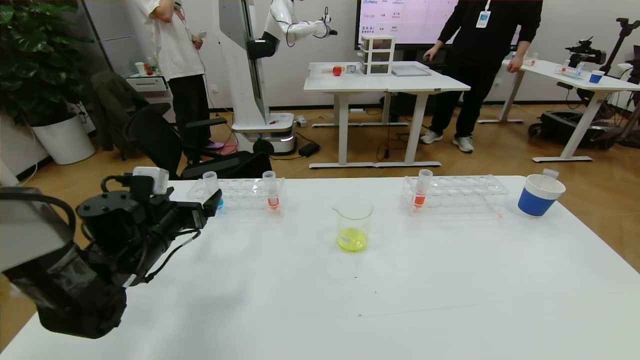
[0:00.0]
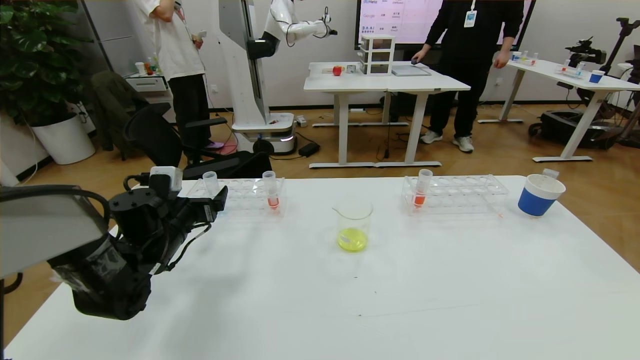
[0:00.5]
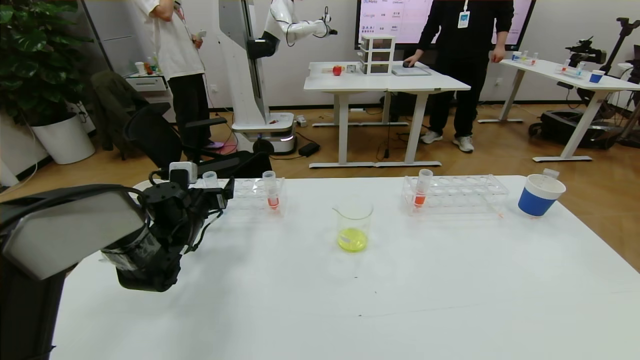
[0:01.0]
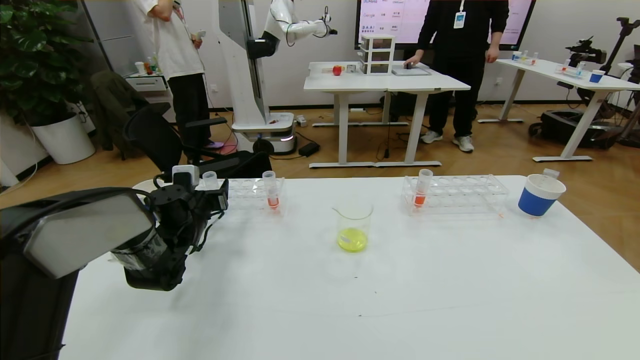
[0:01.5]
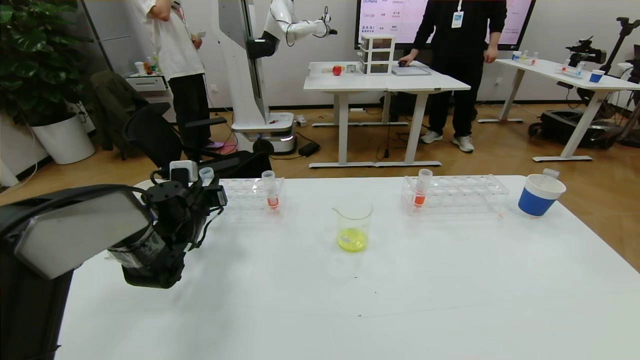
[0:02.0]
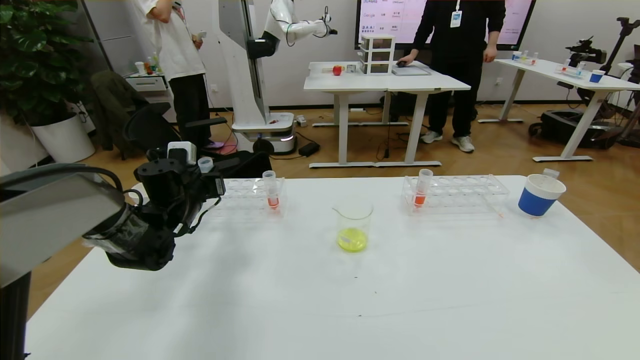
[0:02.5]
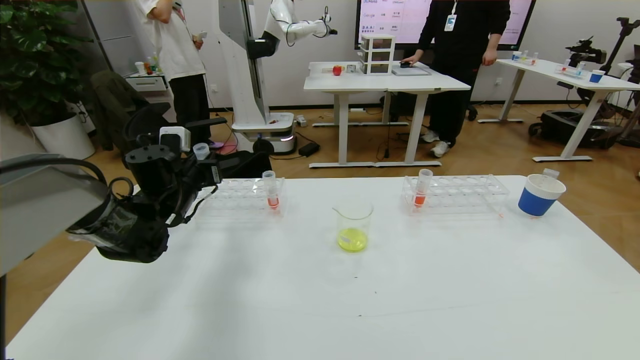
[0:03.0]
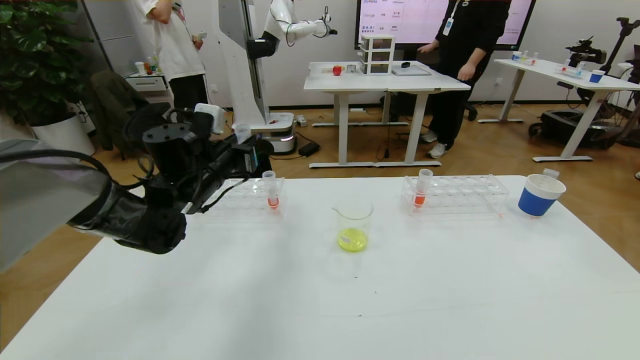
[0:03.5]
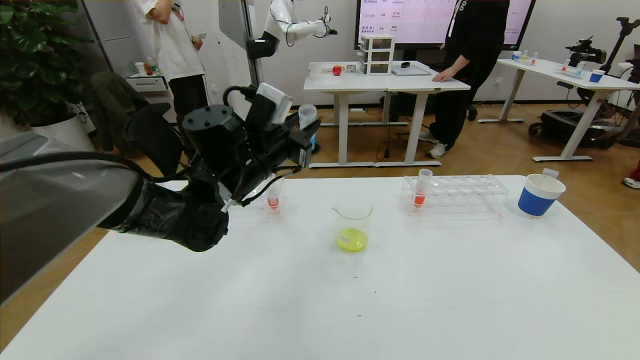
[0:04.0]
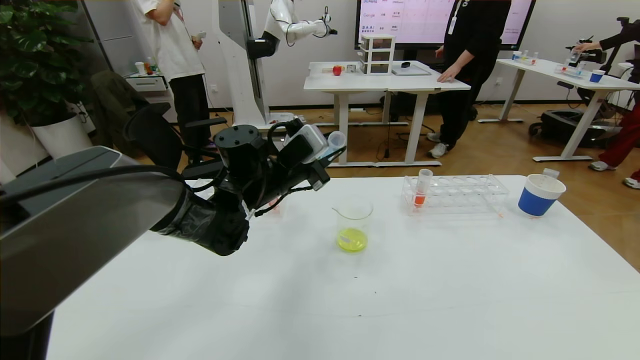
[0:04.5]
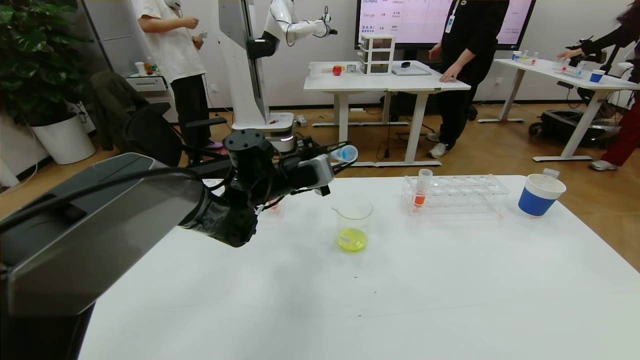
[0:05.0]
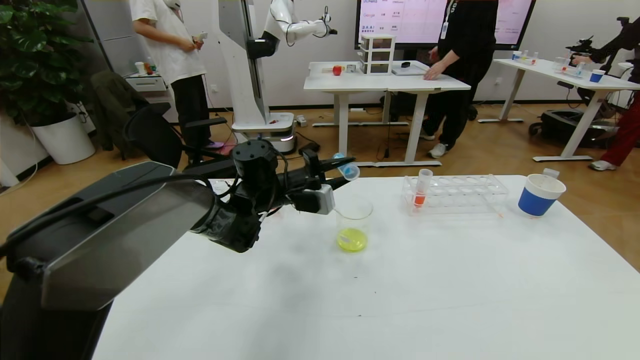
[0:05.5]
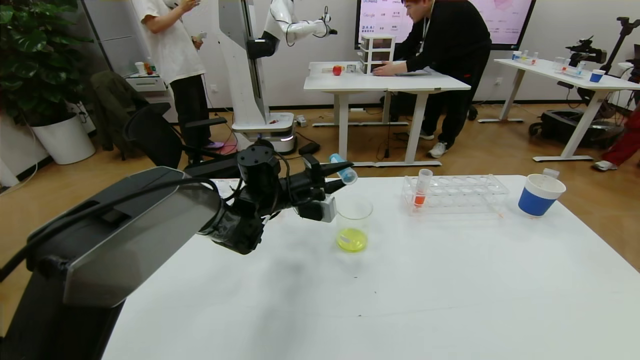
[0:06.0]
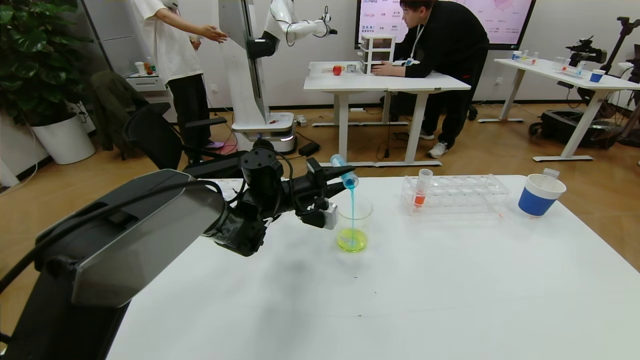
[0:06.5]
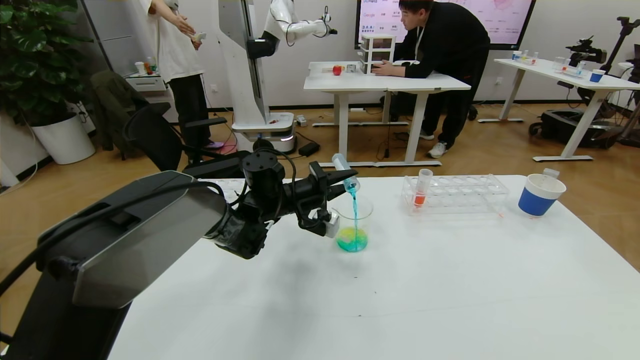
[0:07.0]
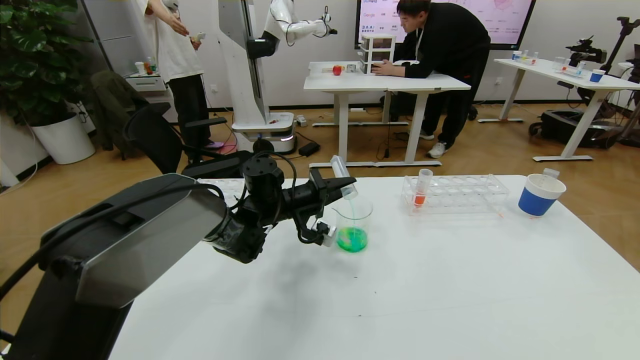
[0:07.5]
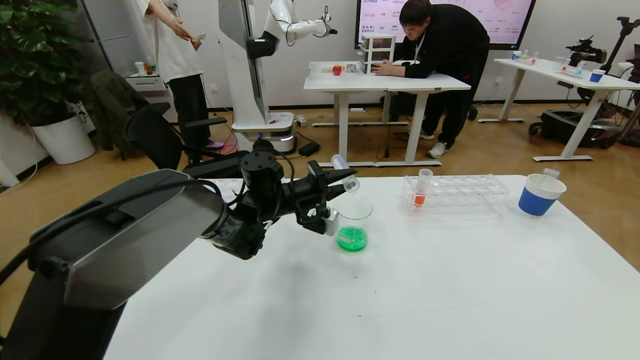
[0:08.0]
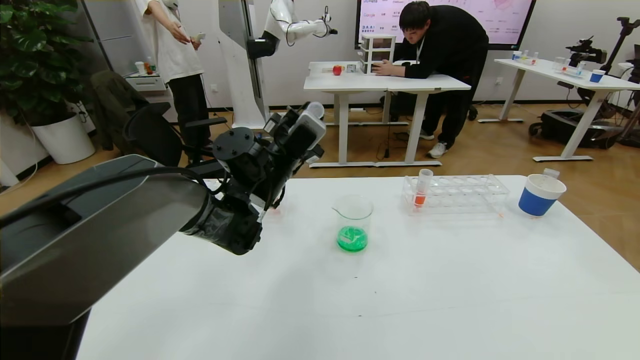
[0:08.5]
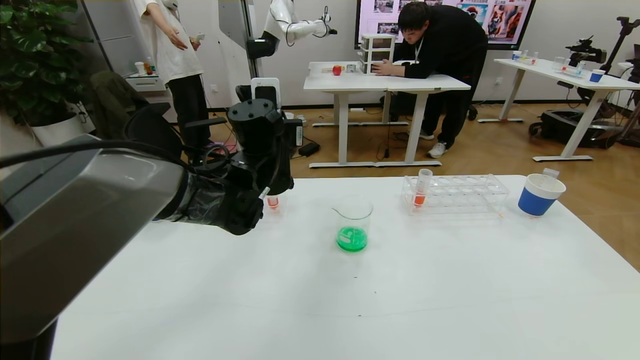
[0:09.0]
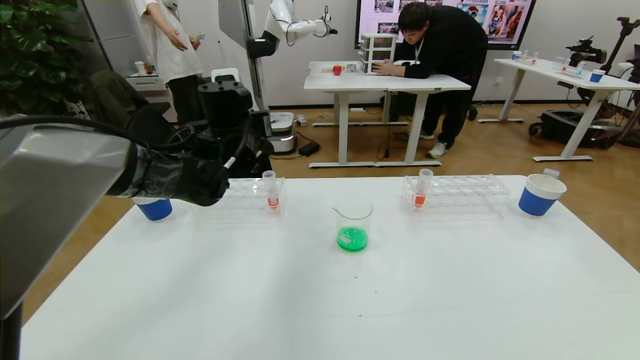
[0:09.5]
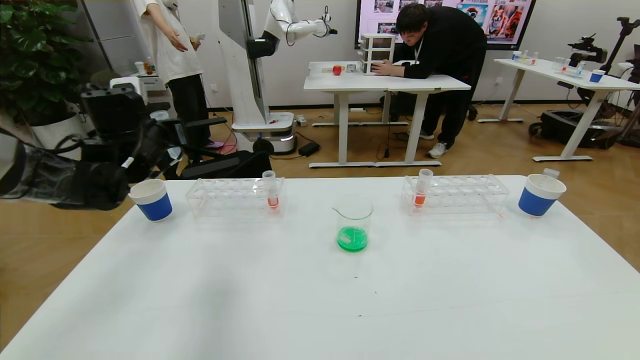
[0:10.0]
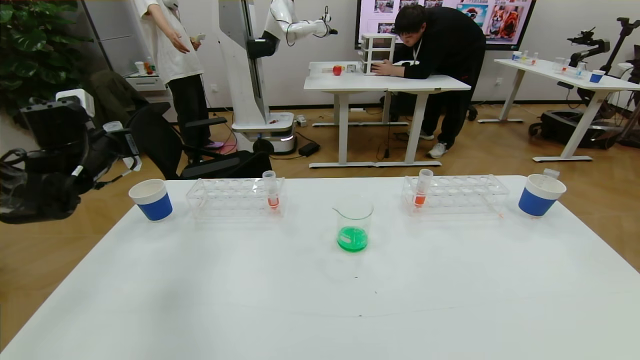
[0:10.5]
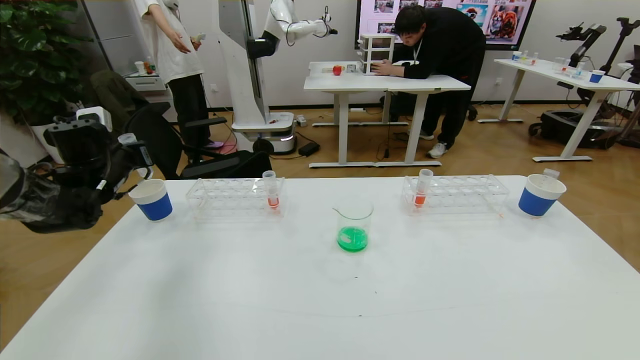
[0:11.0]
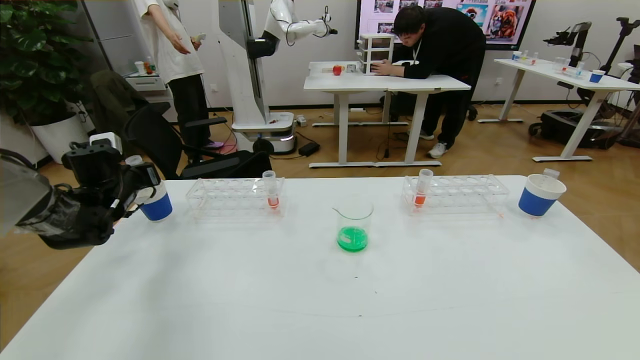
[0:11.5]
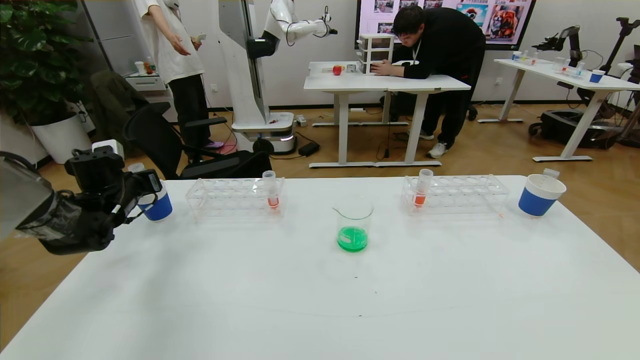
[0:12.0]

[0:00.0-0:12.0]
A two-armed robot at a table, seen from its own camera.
Task of the whole recording: pick up the test tube with yellow pigment and the test tube with blue pigment by grippers and pour them into the beaker.
0:00.0 to 0:02.0: The left gripper goes some 10 cm forward, and closes up.
0:02.0 to 0:04.0: The left gripper travels to the right and upward by some 20 cm.
0:04.0 to 0:06.0: The left gripper is displaced downward and forward by roughly 10 cm.
0:08.0 to 0:10.0: The left gripper is displaced to the left and upward by roughly 25 cm.
0:10.0 to 0:12.0: The left gripper heads downward and to the left, covering about 15 cm.

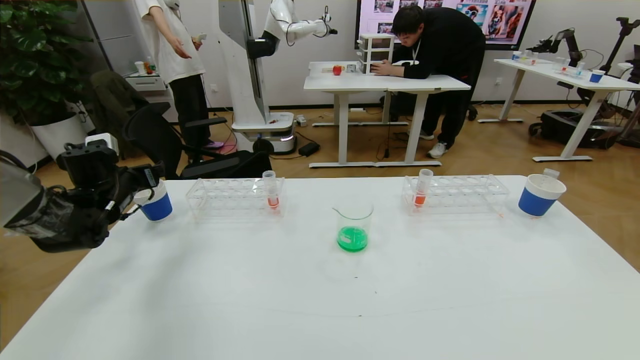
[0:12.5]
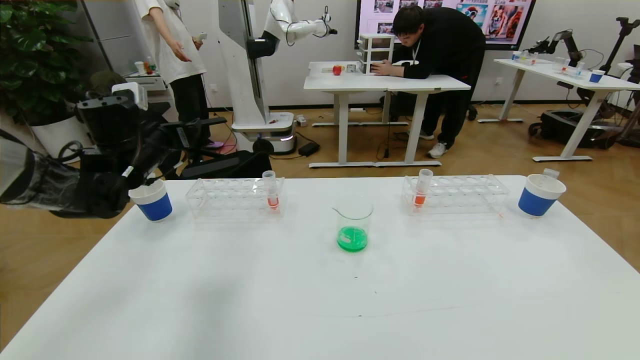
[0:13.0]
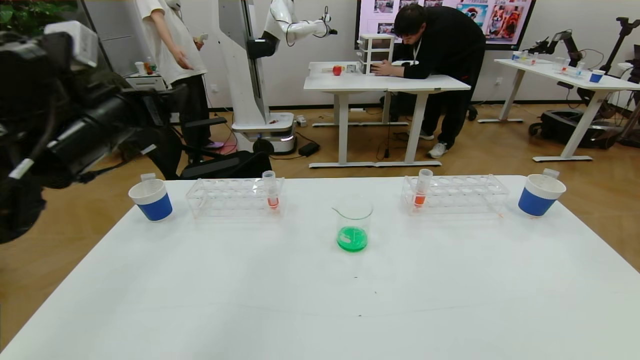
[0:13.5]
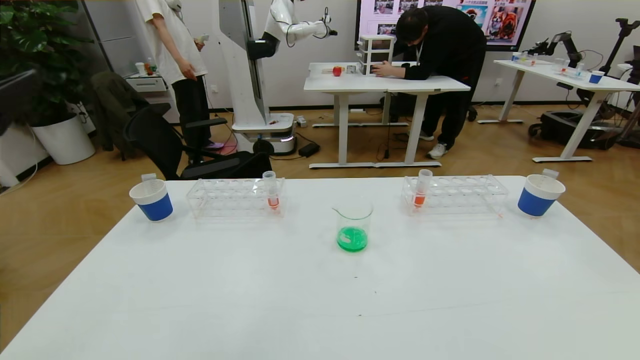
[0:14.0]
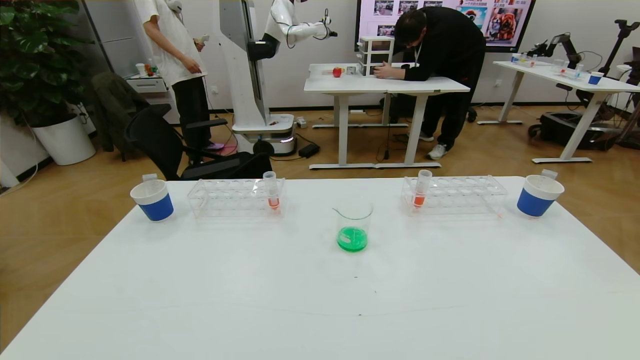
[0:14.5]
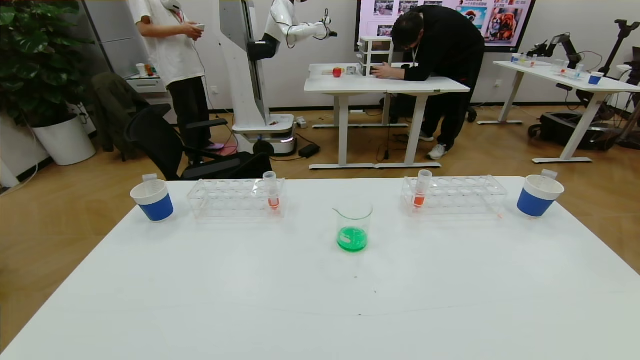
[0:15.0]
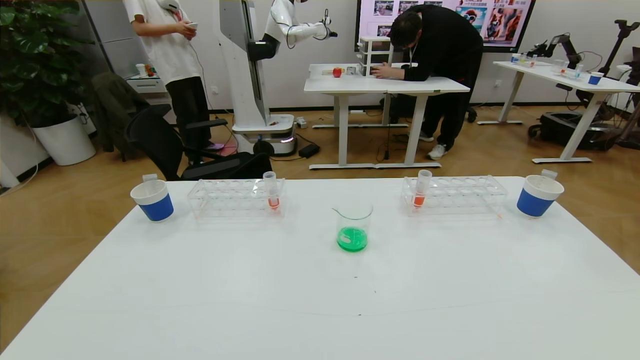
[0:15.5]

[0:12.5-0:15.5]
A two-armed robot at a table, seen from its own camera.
Task of the whole recording: pick up the test tube with yellow pigment and the test tube with blue pigment by grippers and pour them into the beaker.
0:12.5 to 0:14.0: The left gripper travels backward and upward by some 35 cm.
0:14.0 to 0:15.5: The left gripper shifts roughly 25 cm downward and backward.
